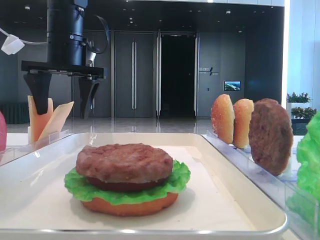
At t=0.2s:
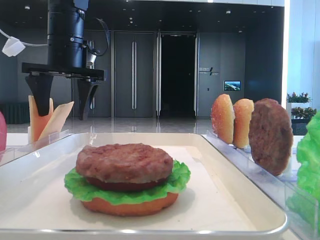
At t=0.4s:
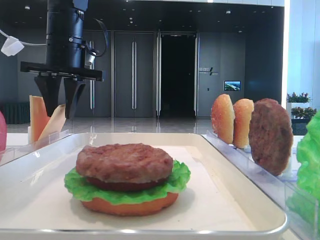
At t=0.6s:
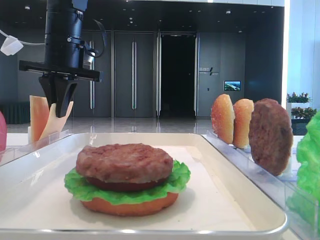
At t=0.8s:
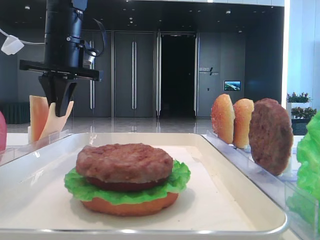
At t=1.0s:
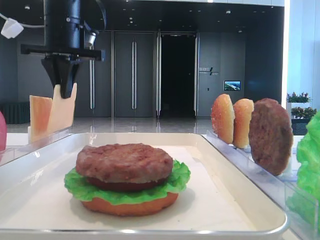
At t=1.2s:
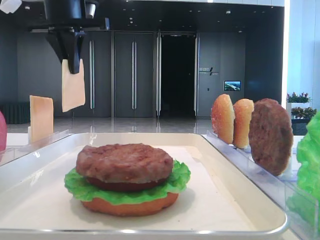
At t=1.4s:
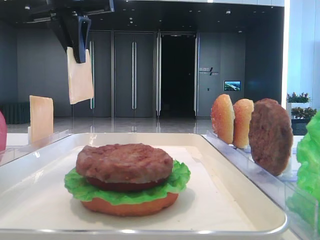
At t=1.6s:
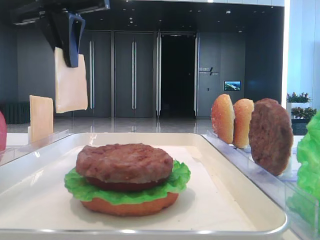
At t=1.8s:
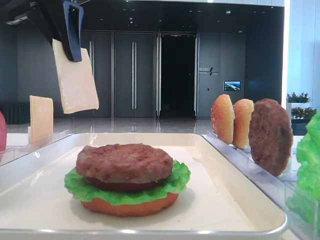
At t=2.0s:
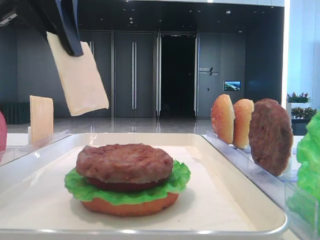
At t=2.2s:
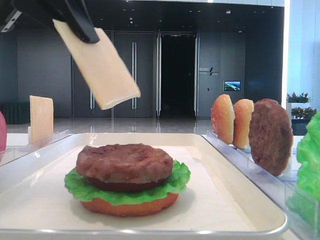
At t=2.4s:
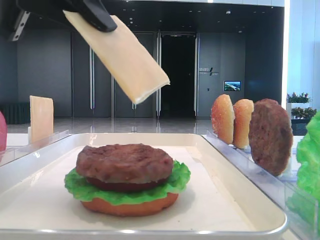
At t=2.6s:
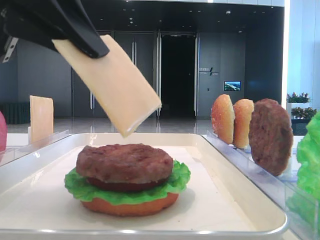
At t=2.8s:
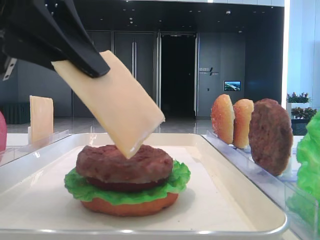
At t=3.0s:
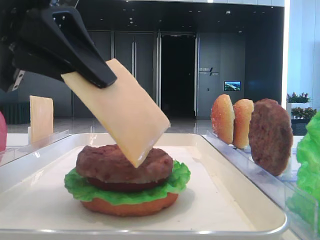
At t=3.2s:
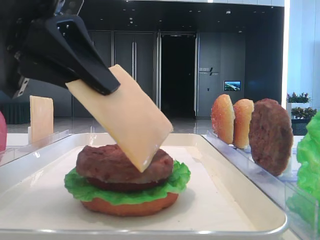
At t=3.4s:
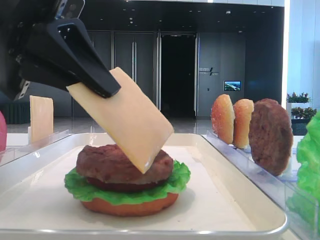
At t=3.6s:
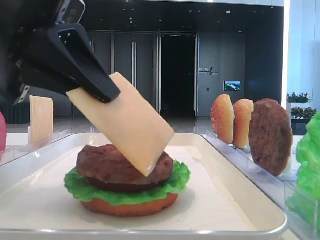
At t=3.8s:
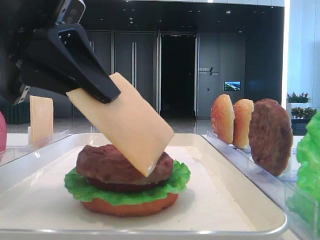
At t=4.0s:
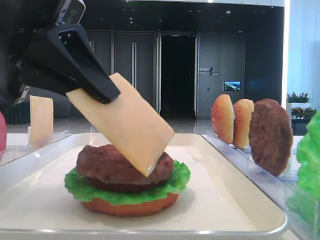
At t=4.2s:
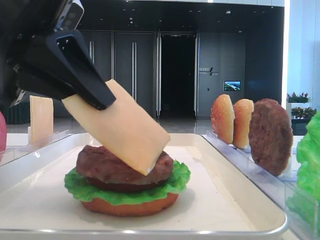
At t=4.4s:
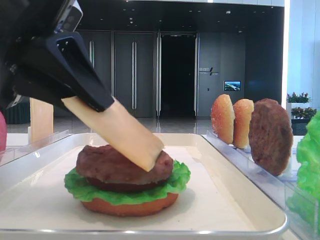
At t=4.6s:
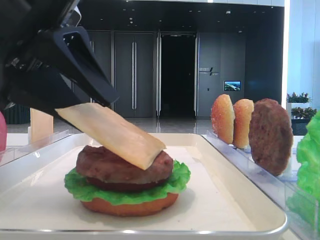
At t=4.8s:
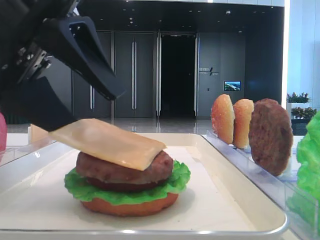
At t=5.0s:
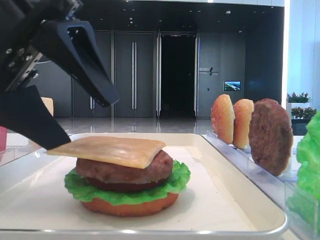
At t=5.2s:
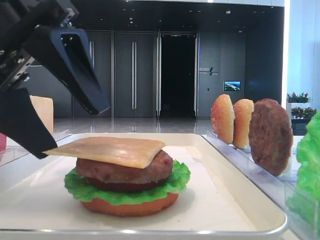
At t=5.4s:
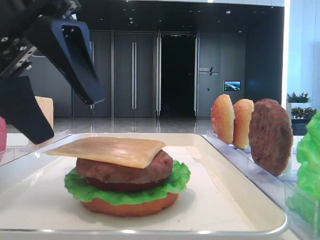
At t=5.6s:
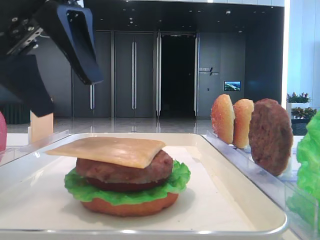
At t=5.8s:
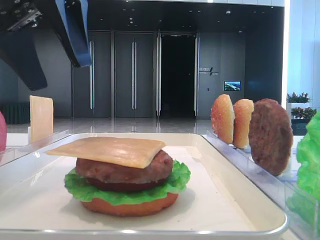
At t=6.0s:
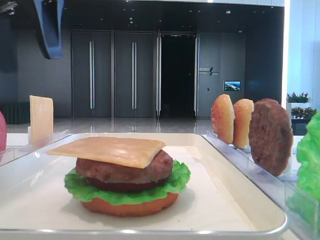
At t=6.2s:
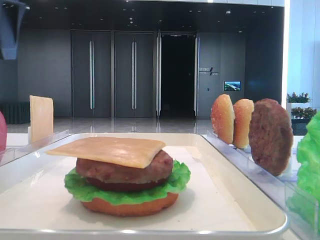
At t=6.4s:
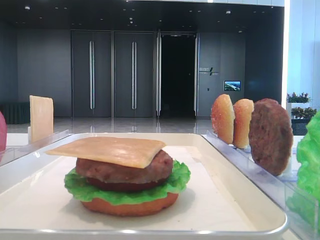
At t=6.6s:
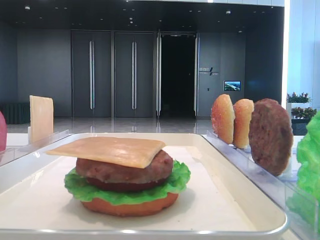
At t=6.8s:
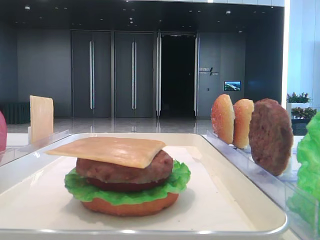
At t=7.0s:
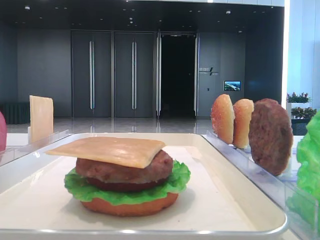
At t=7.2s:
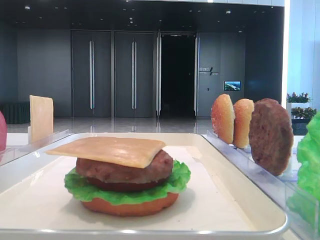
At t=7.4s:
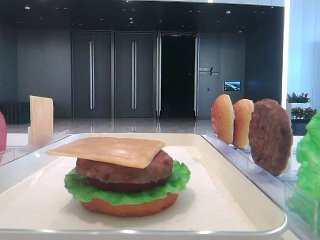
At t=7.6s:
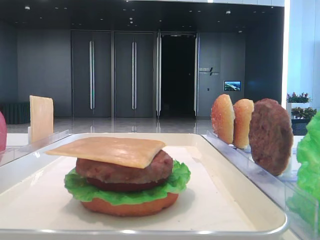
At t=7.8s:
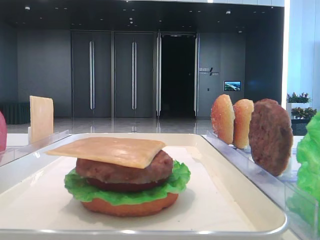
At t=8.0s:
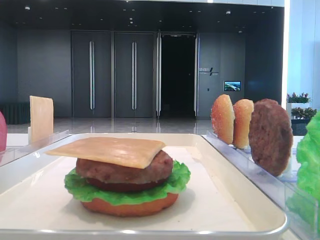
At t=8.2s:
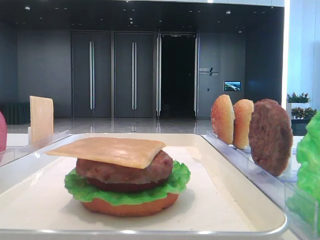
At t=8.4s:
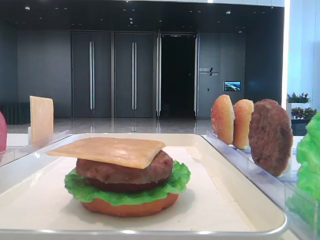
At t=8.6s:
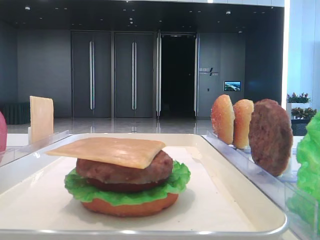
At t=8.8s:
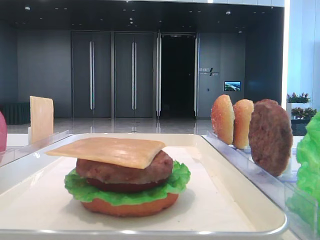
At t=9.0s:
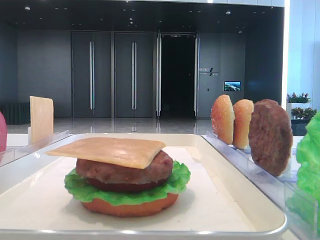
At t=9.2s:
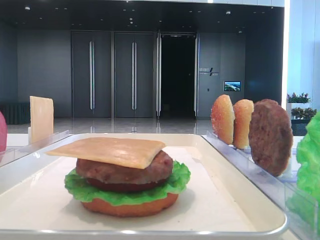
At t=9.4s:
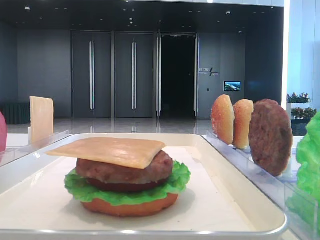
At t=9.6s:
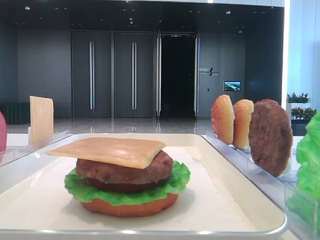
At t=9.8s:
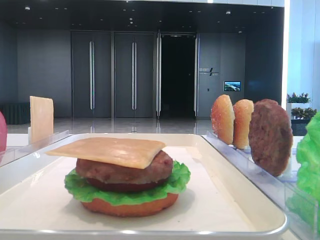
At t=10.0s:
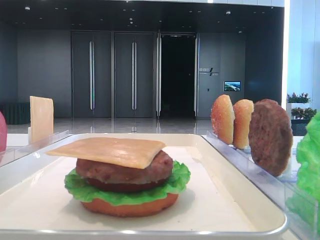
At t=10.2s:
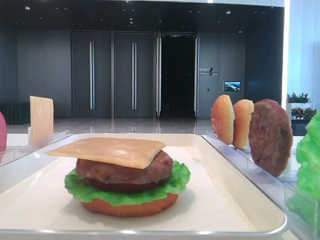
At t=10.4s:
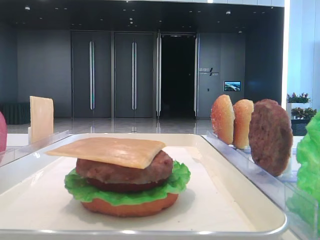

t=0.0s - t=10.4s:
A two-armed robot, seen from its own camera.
Step, t=0.8s - t=5.0s: Place the cheese slice on the patty with the left hand.
t=0.0s - t=1.4s: The left gripper is displaced upward by about 10 cm, and closes up.
t=1.4s - t=3.0s: The left gripper goes approximately 20 cm backward and downward.
t=3.0s - t=4.4s: The grippers make only small movements.
t=4.4s - t=6.0s: The left gripper heads upward and forward, covering some 10 cm, and opens up.
t=6.0s - t=7.4s: The left gripper goes roughly 15 cm to the left.
t=9.0s - t=10.4s: The two grippers keep their place.

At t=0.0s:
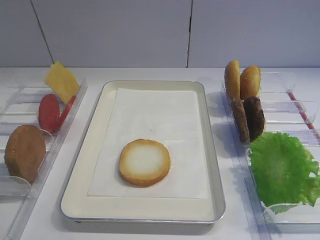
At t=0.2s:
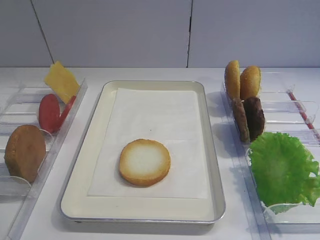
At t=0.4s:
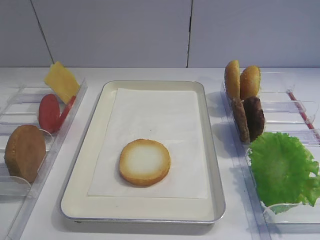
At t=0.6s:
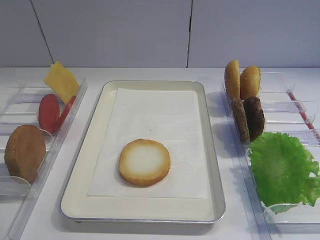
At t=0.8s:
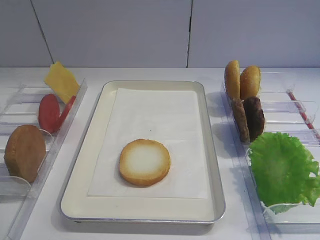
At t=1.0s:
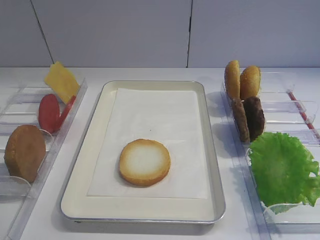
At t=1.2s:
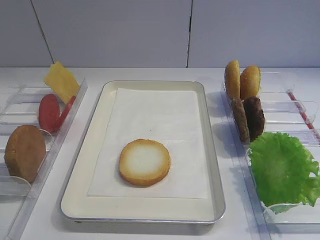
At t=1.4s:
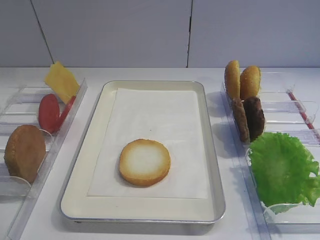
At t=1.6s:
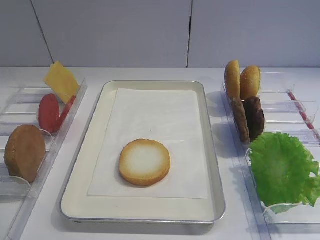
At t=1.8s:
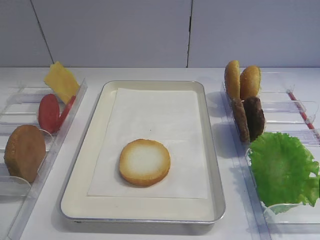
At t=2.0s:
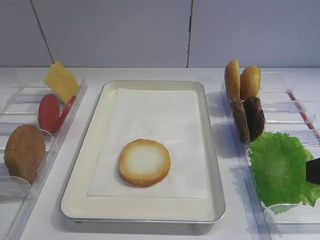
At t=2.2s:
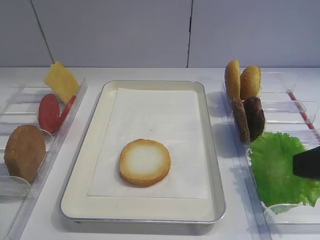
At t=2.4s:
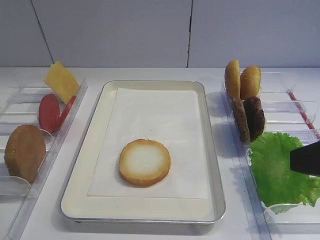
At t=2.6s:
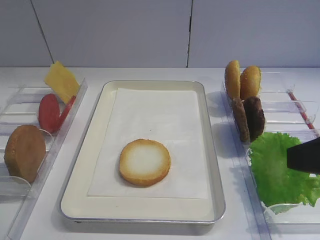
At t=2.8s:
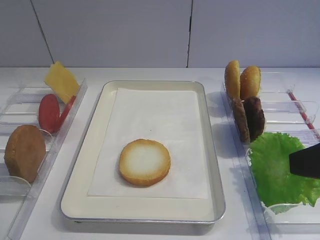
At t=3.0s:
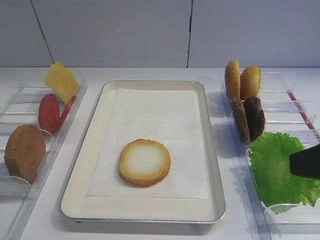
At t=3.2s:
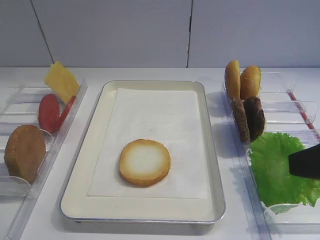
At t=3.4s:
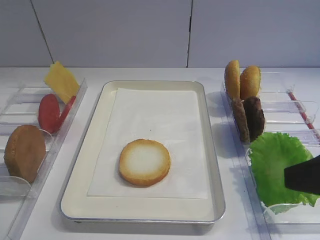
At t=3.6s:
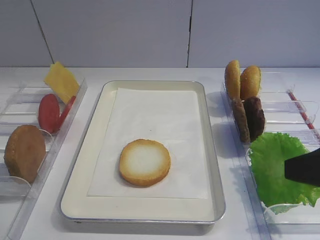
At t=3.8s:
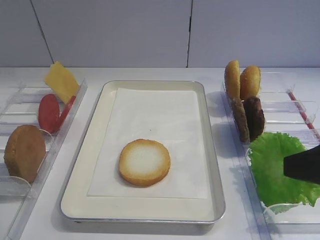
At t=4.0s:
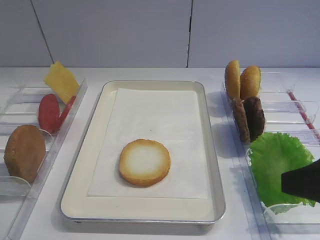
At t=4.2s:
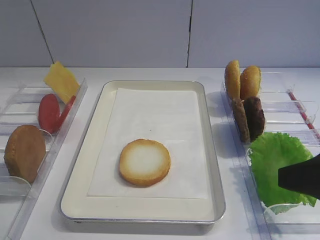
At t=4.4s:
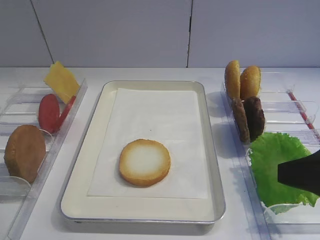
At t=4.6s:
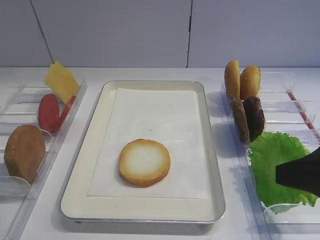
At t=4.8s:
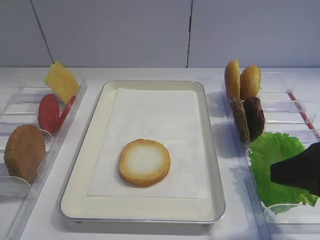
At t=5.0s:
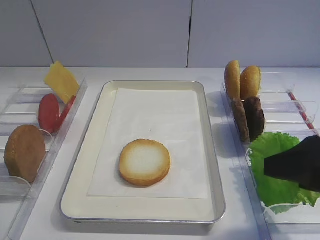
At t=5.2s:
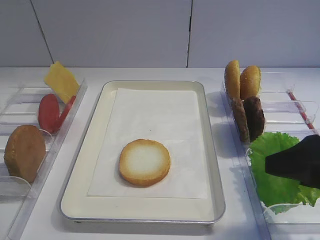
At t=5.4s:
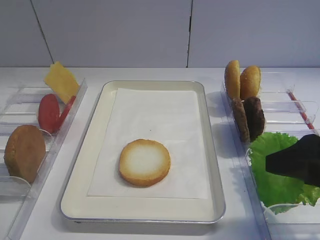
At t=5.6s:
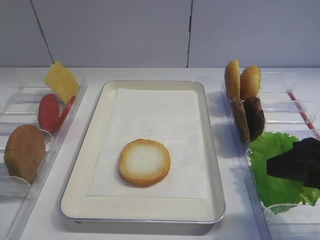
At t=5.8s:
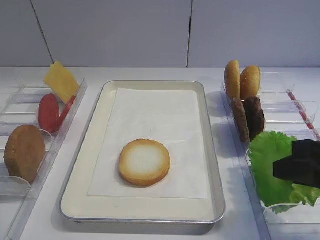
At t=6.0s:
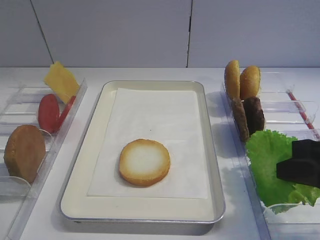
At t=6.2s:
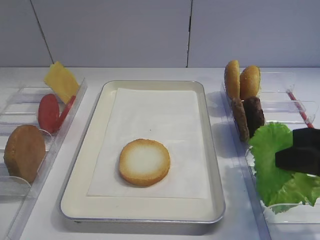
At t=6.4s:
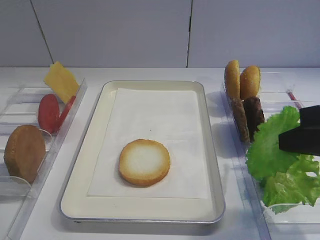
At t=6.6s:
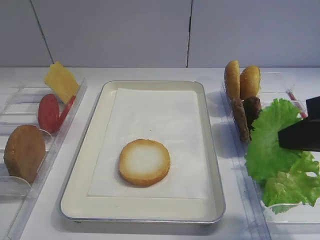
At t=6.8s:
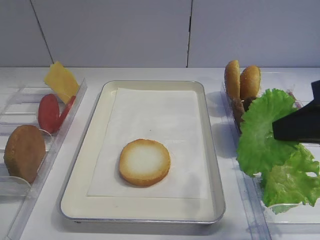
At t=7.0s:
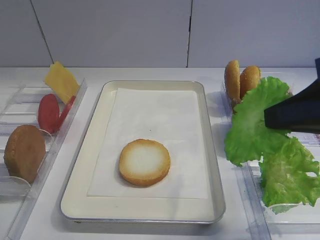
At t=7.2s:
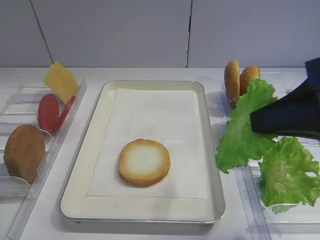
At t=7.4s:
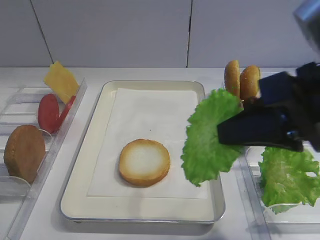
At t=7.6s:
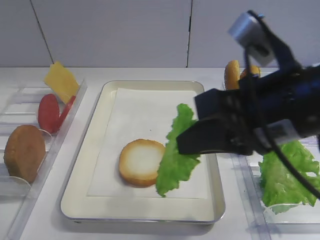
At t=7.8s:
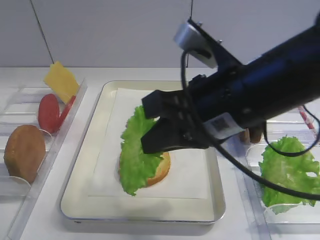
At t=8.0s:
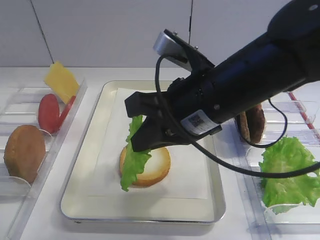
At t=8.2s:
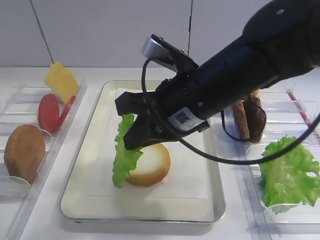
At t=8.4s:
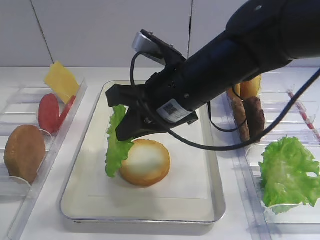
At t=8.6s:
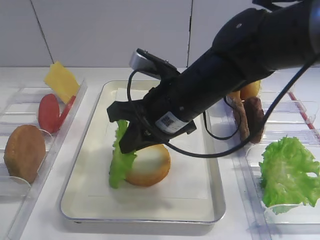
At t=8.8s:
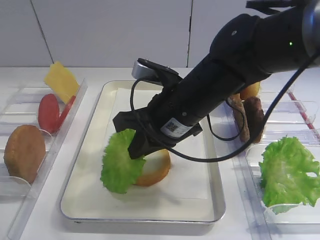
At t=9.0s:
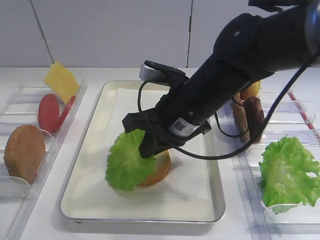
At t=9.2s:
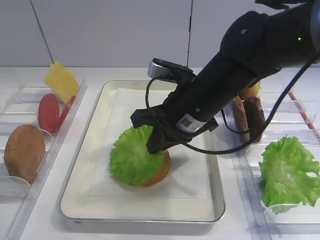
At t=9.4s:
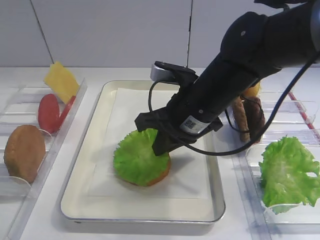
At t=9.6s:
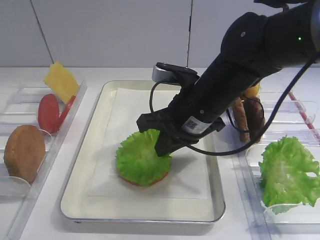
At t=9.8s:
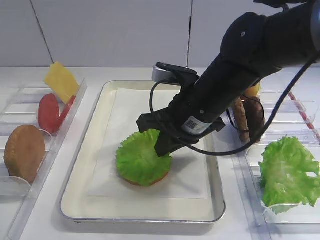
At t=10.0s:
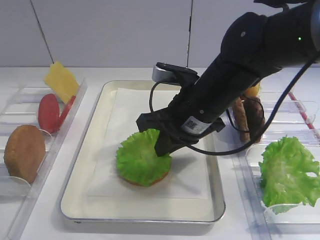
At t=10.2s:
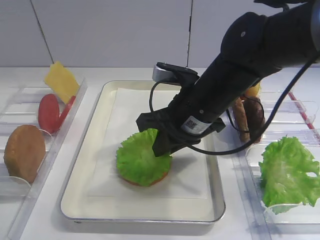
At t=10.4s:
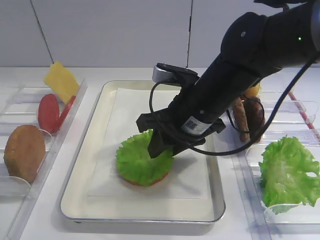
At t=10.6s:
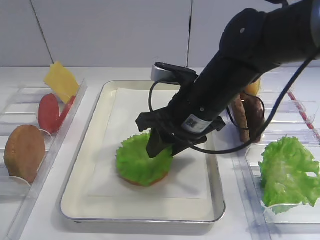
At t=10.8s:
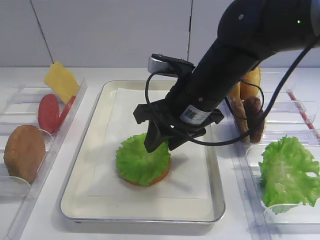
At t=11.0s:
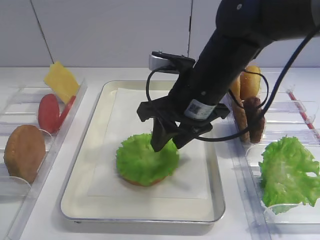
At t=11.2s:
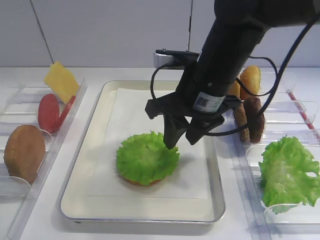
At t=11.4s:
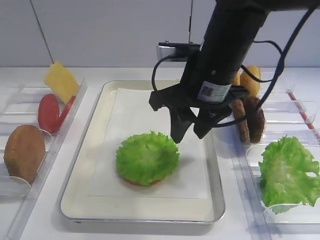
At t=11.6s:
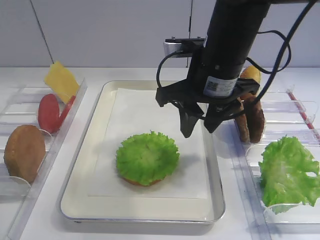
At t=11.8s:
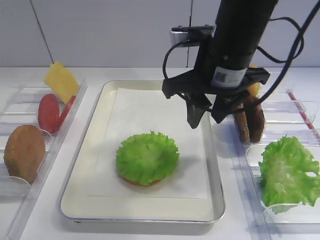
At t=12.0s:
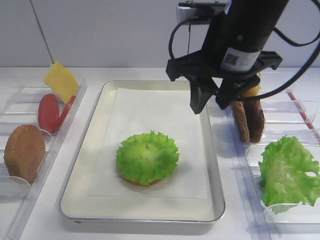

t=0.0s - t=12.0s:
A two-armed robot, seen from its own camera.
Step, t=0.0s - t=6.6s: Pick up the lettuce leaf with the right gripper.
Step, t=6.8s - t=11.4s: Place the lettuce leaf on the bread slice with the right gripper.
t=1.6s - t=3.0s: The right gripper is displaced forward by some 5 cm.
t=3.0s - t=4.4s: The grippers move only a little.
t=4.4s - t=6.0s: The right gripper closes.
t=6.0s - t=7.6s: The right gripper moves to the left and upward, some 15 cm.
t=7.6s - t=9.0s: The right gripper shifts about 15 cm forward, downward and to the left.
t=9.0s - t=10.4s: The right gripper opens up.
t=10.4s - t=12.0s: The right gripper is displaced upward by roughly 10 cm.
